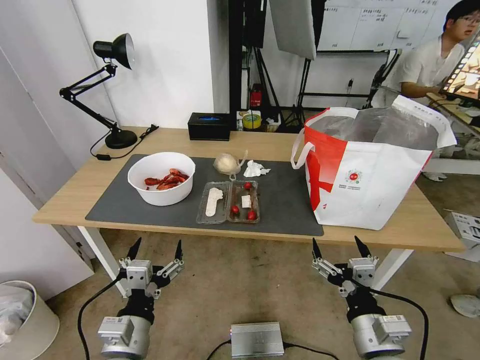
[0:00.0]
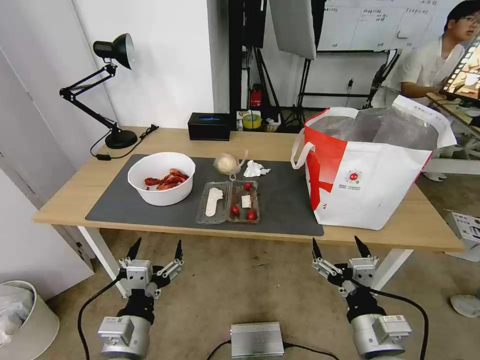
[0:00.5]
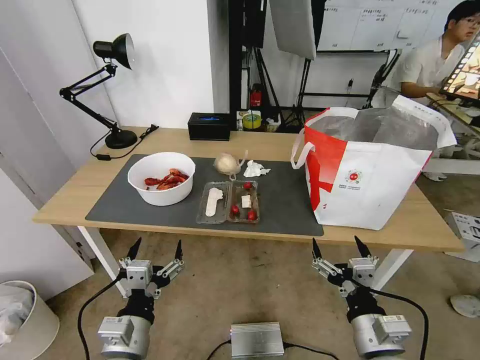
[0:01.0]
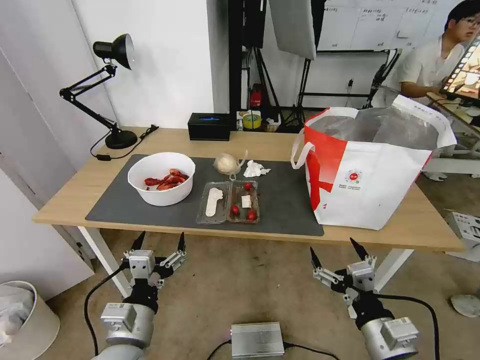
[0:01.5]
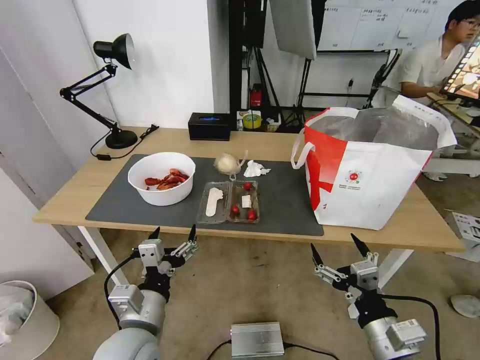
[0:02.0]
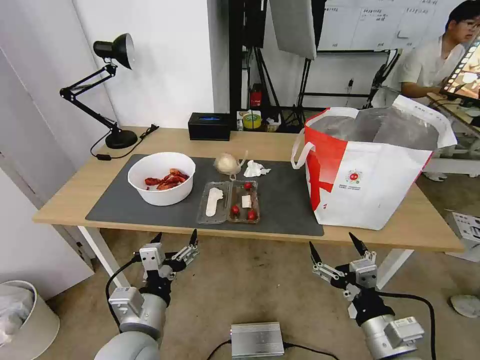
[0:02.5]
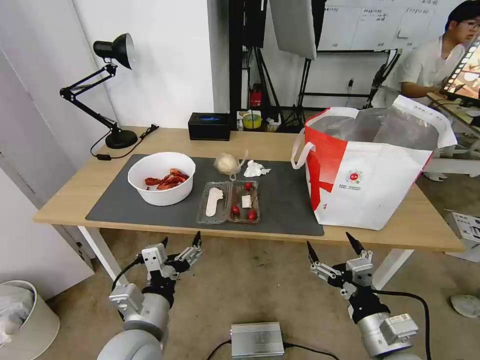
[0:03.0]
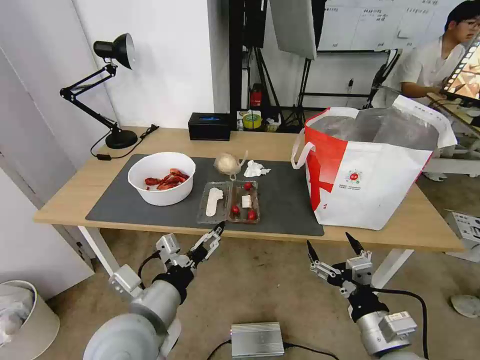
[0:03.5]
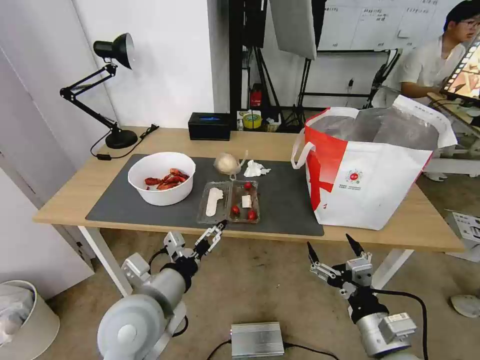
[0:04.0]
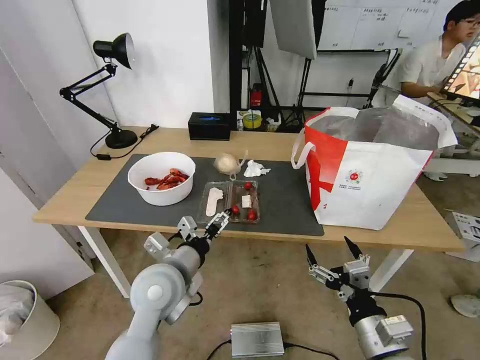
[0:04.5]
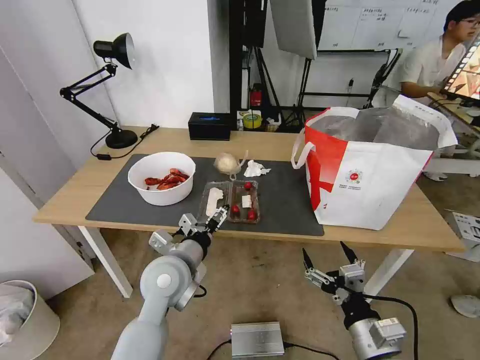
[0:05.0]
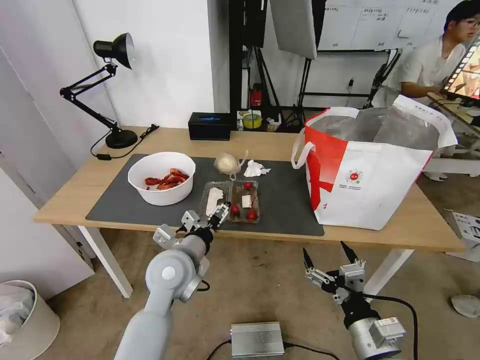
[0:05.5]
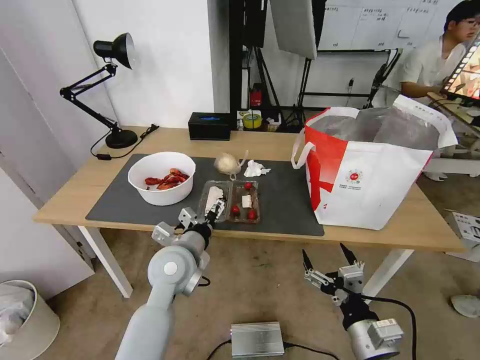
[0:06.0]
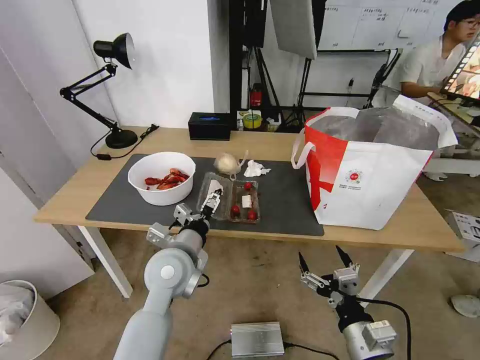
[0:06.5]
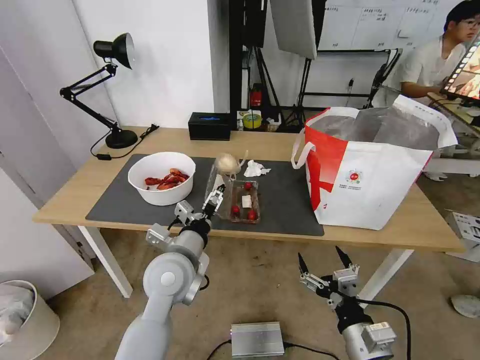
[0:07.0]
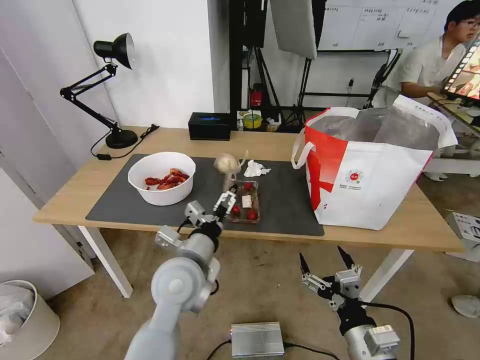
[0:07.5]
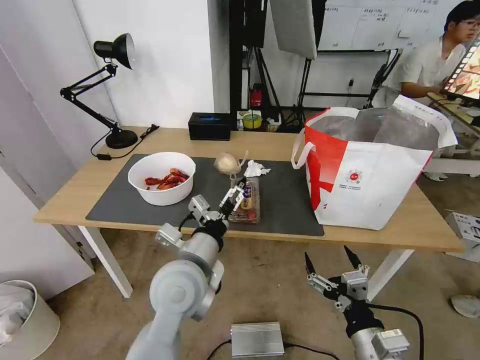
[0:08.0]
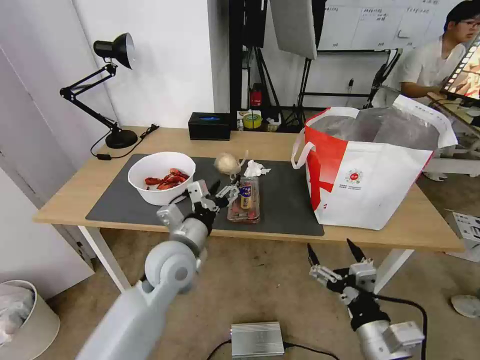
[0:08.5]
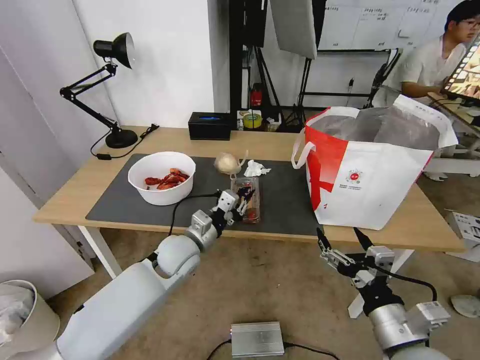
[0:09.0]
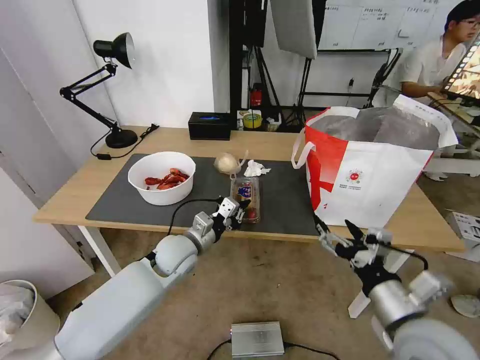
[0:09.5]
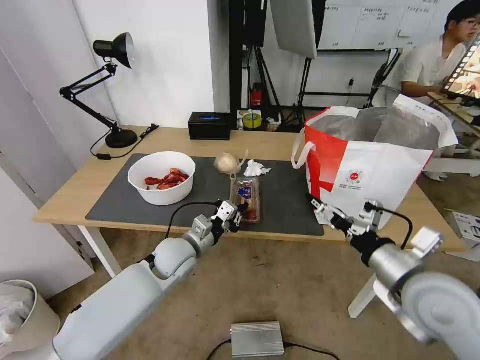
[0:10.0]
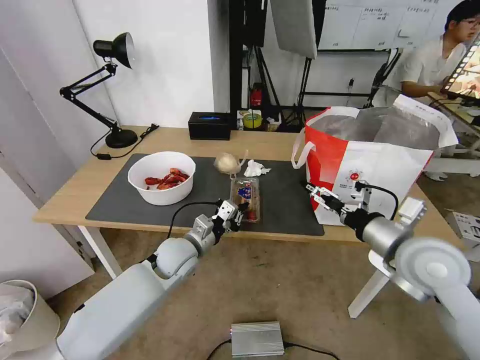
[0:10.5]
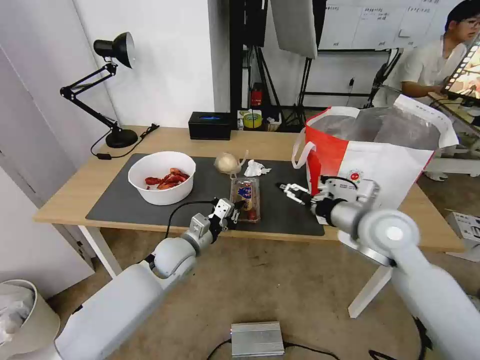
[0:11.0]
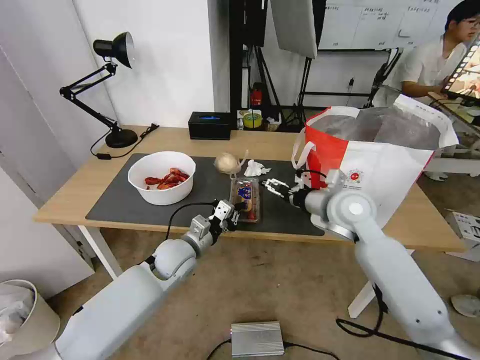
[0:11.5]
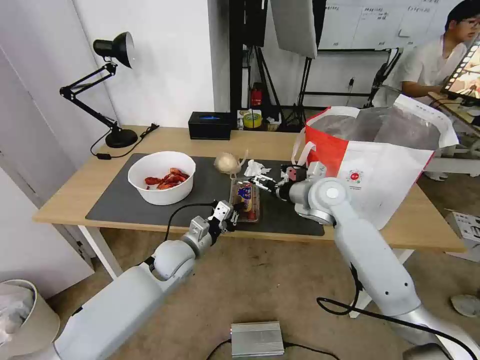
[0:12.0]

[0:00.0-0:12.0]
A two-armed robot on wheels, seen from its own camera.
Task of the whole recording: Pick up the trash from the table and place it into the takeout bag.
0:02.0 to 0:04.0: The left gripper shifts roughly 5 cm upward.
0:04.0 to 0:06.0: The left gripper heads forward, covering roughly 10 cm.
0:06.0 to 0:08.0: The left gripper shifts approximately 5 cm backward.
0:08.0 to 0:10.0: The right gripper moves upward, forward and to the right, some 15 cm, while the left gripper goes about 15 cm forward and downward, and closes its fingers.
0:10.0 to 0:12.0: The right gripper goes some 25 cm forward and to the left.

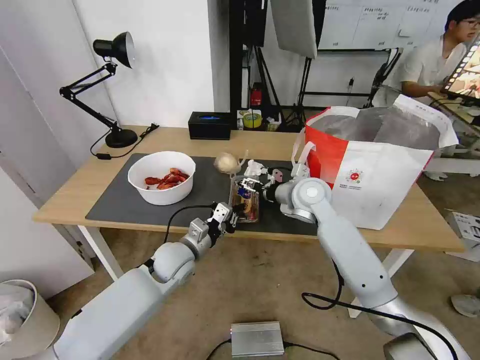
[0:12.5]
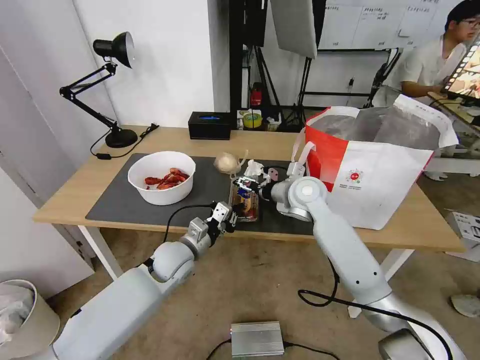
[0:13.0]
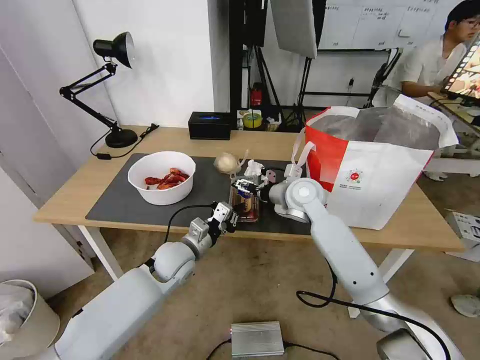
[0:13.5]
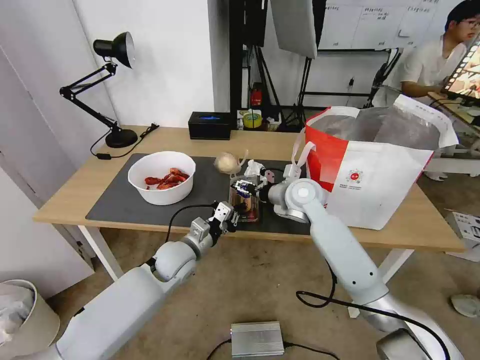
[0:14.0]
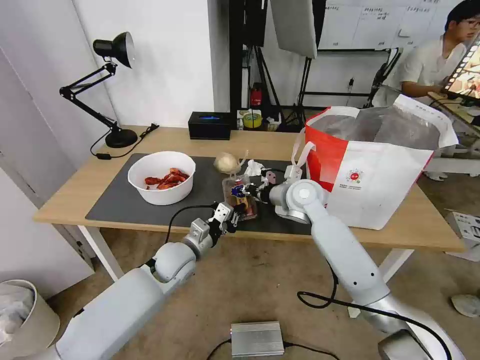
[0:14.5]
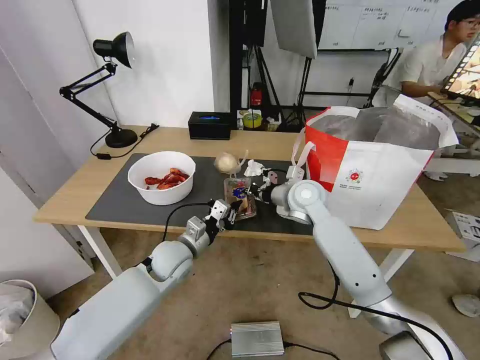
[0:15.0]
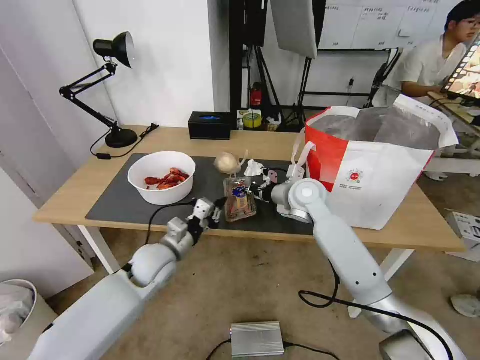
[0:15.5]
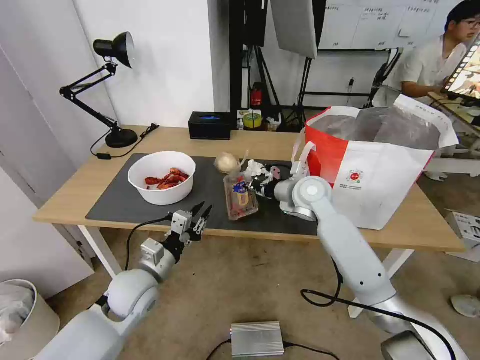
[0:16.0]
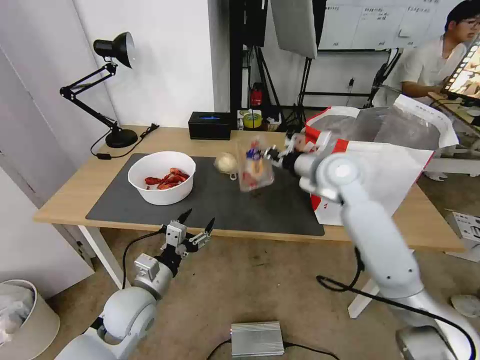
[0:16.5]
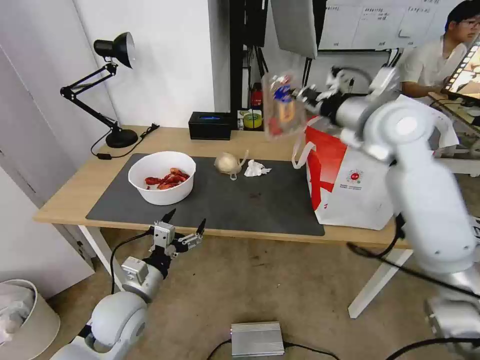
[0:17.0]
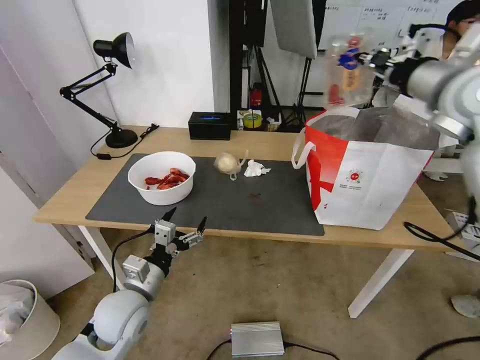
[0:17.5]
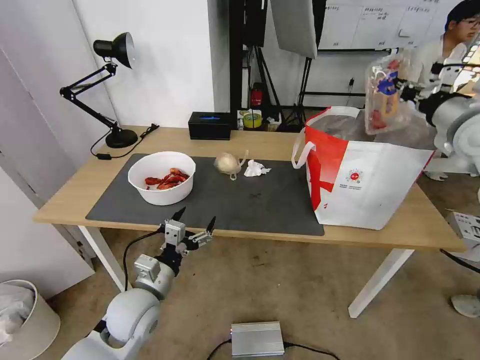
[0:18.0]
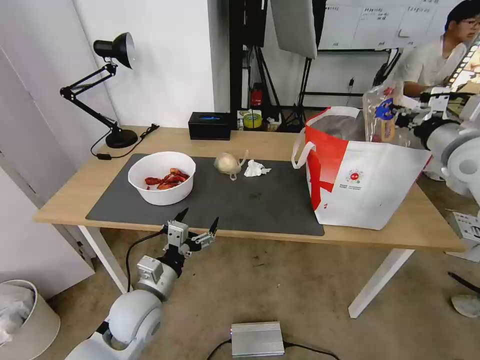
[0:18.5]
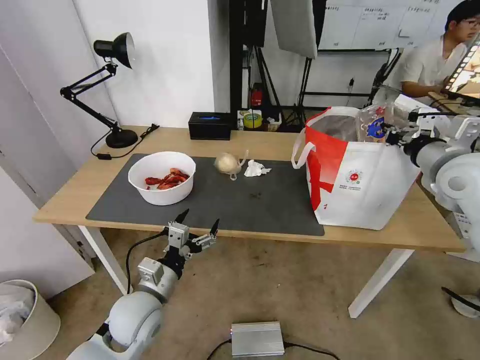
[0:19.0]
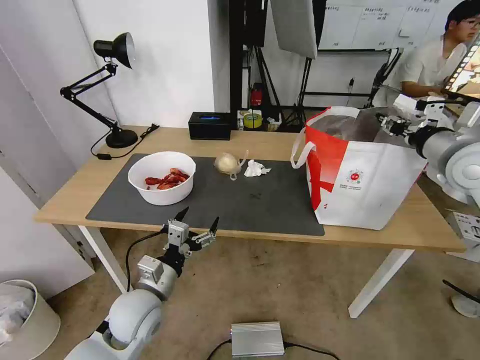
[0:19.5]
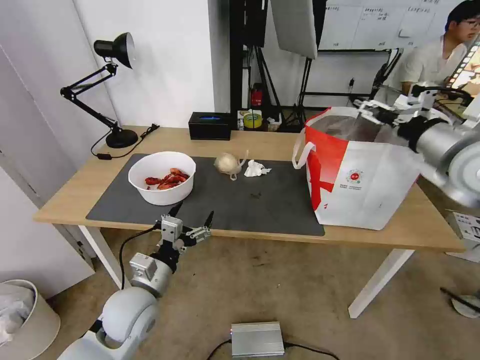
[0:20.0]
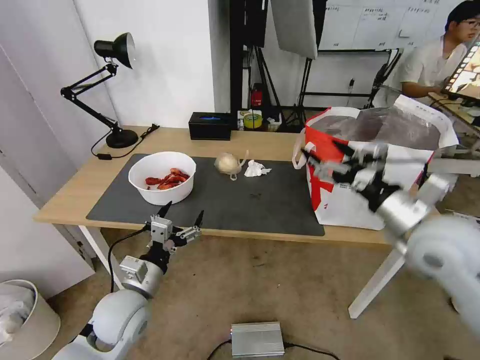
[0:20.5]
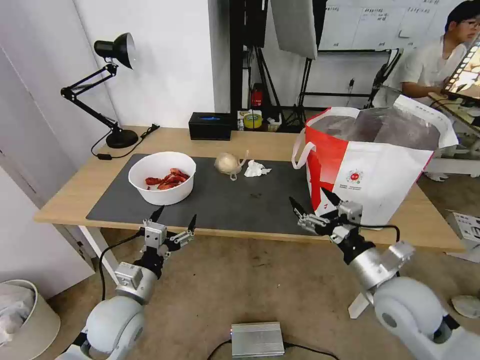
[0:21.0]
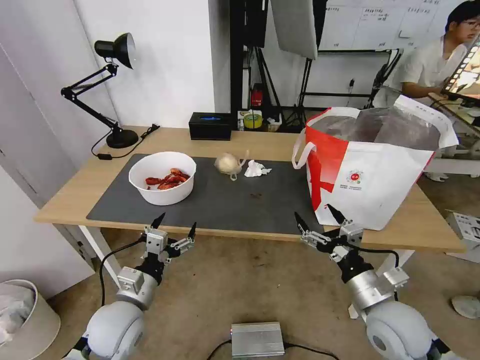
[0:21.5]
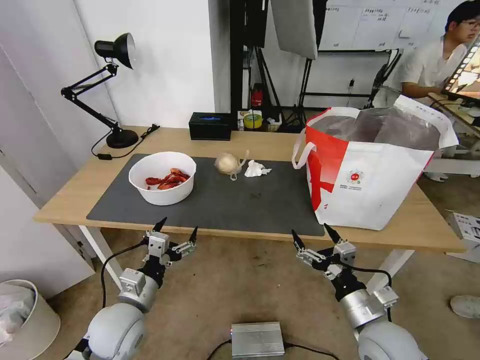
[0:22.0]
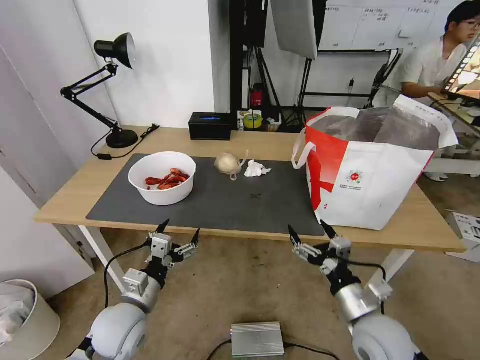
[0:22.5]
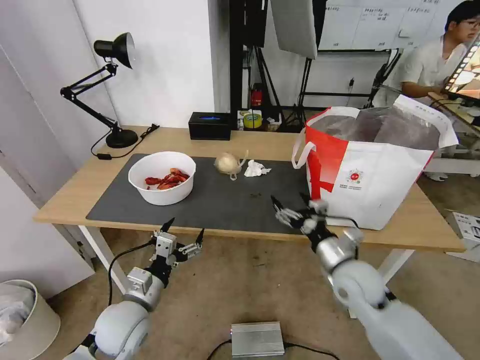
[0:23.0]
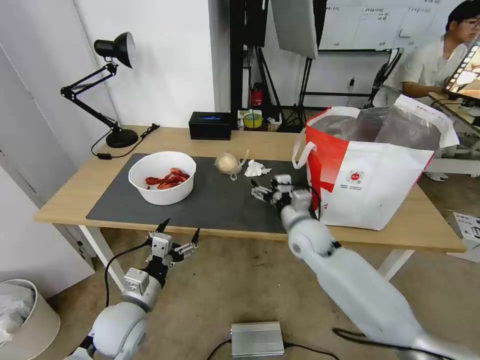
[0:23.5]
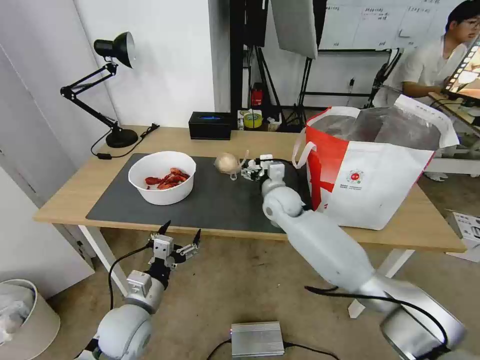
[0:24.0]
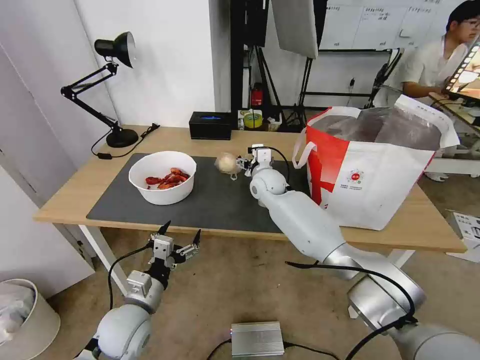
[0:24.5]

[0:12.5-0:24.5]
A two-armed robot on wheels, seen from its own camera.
Task of the whole recording: Pick up the trash from the table and place it into the takeout bag.
0:12.5 to 0:14.5: The right gripper closes up.
0:14.5 to 0:16.5: The left gripper shifts approximately 15 cm backward and to the left, and opens, while the right gripper shifts approximately 10 cm upward.
0:16.5 to 0:18.5: The right gripper heads to the right, covering approximately 20 cm.
0:18.5 to 0:20.5: The right gripper shifts approximately 20 cm backward, to the left and downward, and opens its fingers.
0:20.5 to 0:22.5: The right gripper is displaced downward and backward by some 20 cm.
0:22.5 to 0:24.5: The right gripper shifts approximately 40 cm forward and to the left.

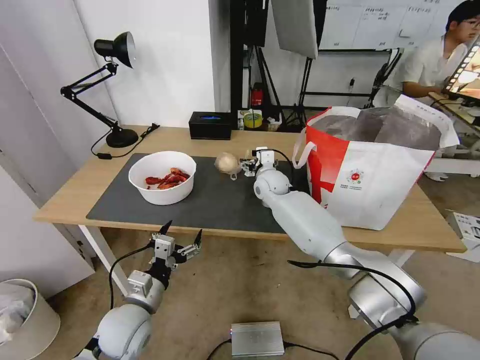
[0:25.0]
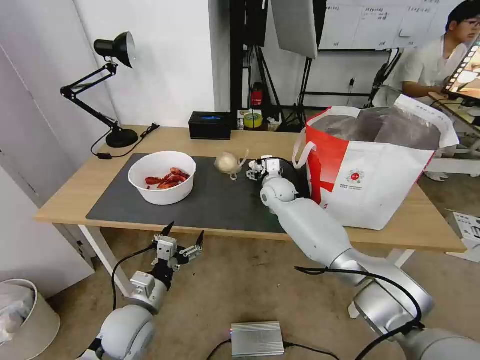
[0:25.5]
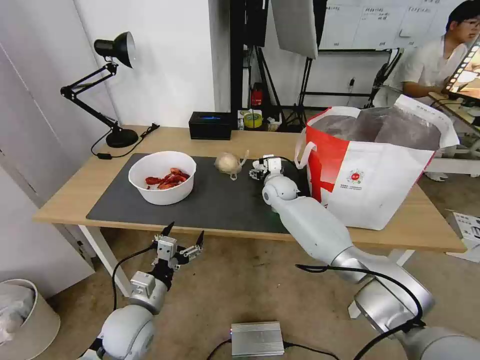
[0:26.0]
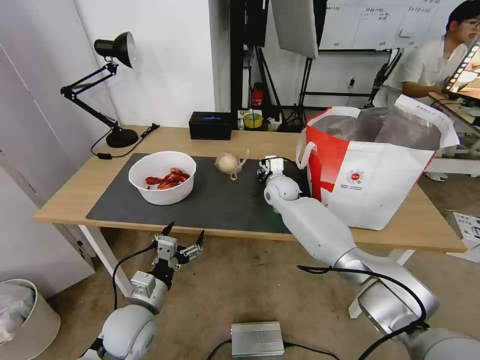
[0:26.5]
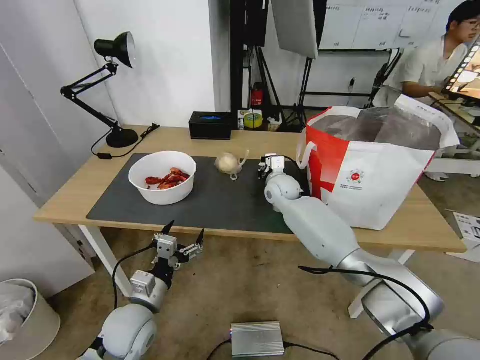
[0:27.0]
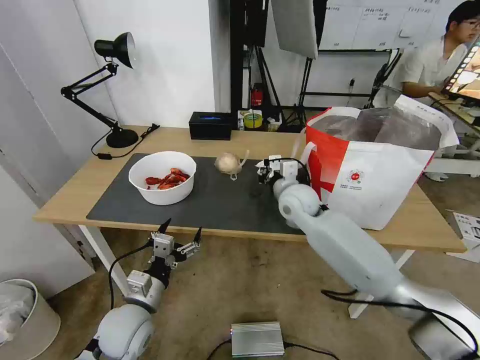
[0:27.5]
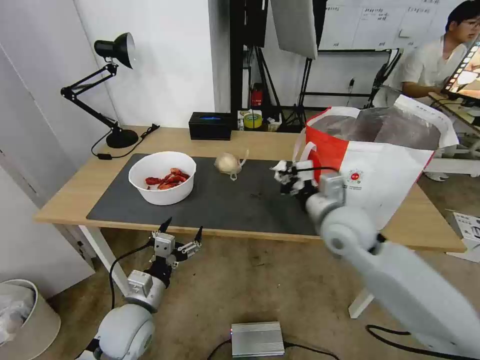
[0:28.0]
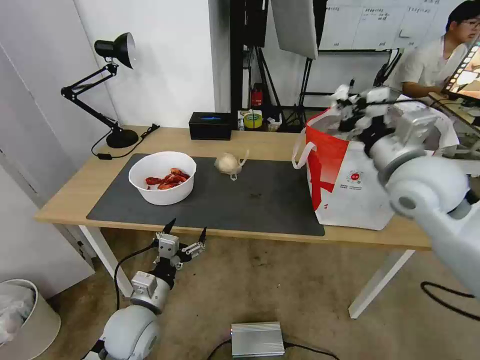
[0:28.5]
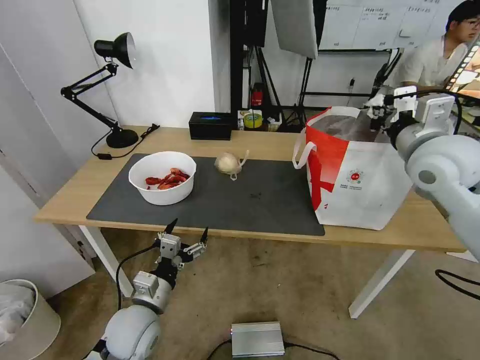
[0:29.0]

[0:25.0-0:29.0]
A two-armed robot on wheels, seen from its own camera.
Task of the whole recording: Pick up the trash from the table and place it into the takeout bag.
0:25.0 to 0:27.0: The right gripper closes.
0:27.0 to 0:29.0: The right gripper moves upward, to the right and backward, approximately 35 cm.
